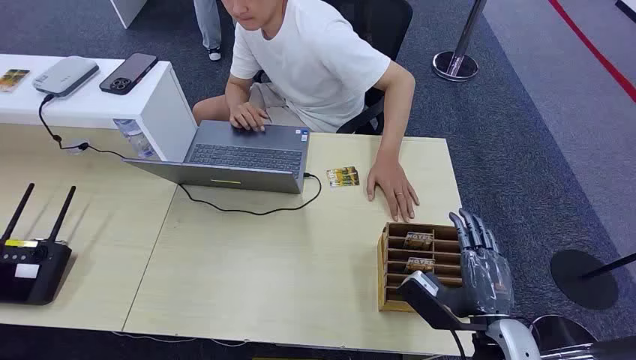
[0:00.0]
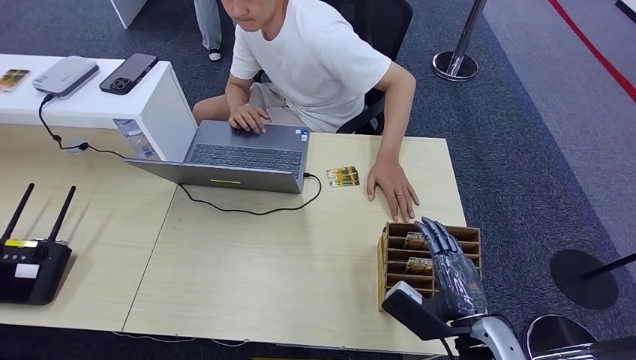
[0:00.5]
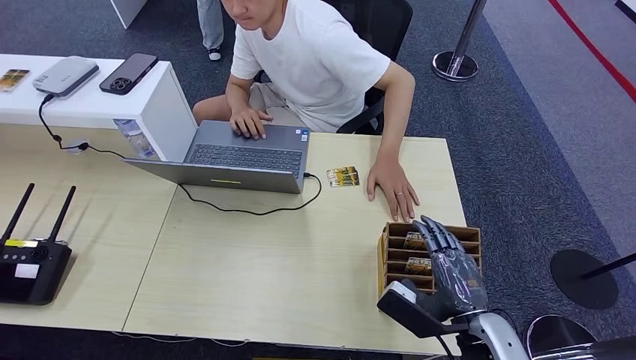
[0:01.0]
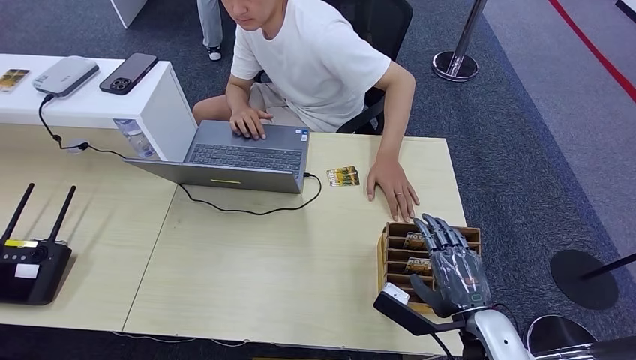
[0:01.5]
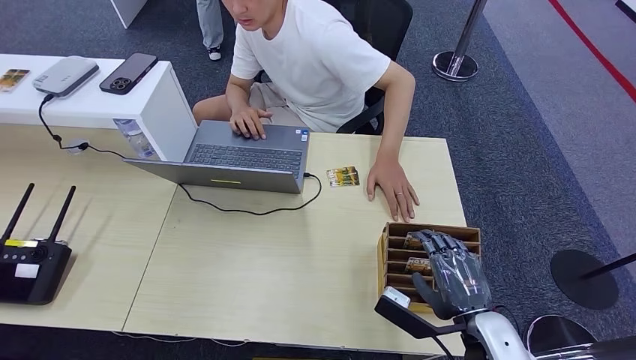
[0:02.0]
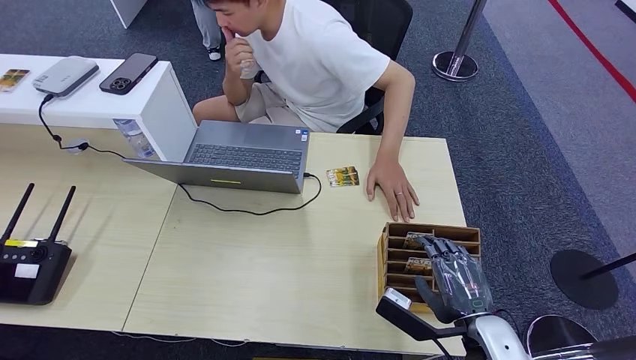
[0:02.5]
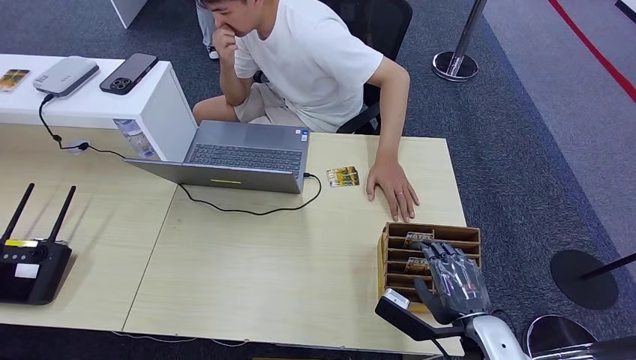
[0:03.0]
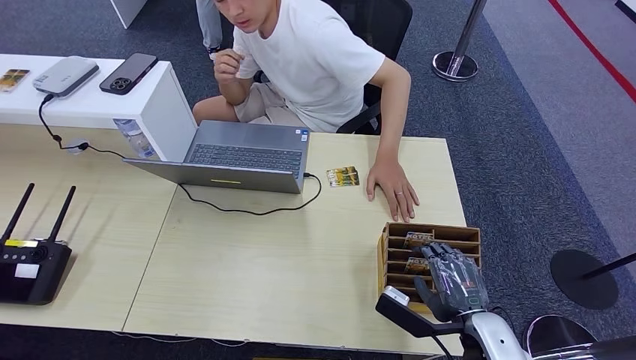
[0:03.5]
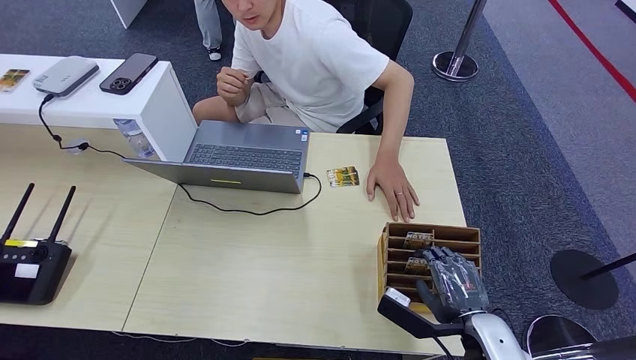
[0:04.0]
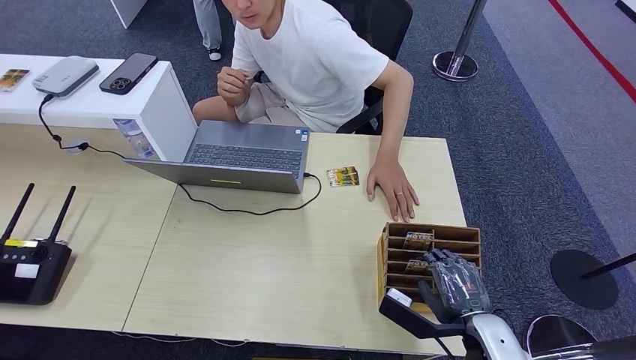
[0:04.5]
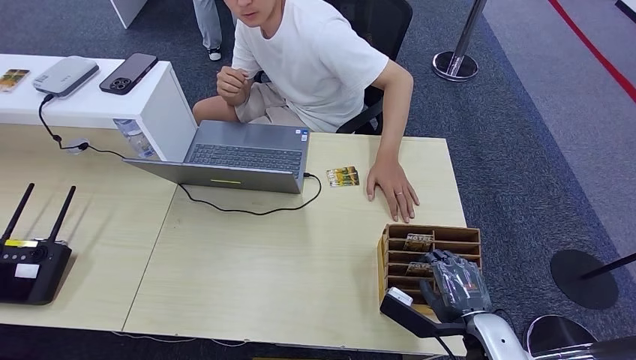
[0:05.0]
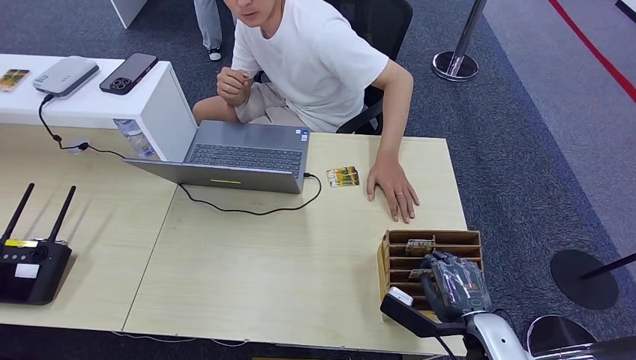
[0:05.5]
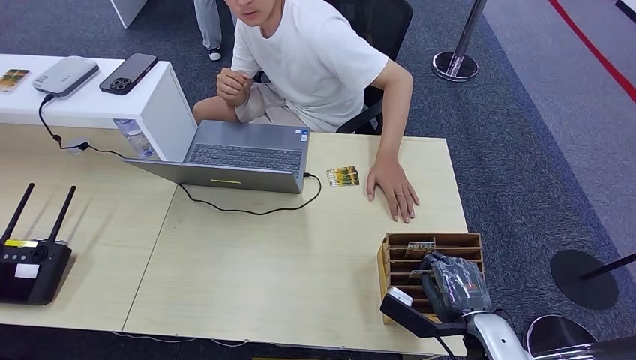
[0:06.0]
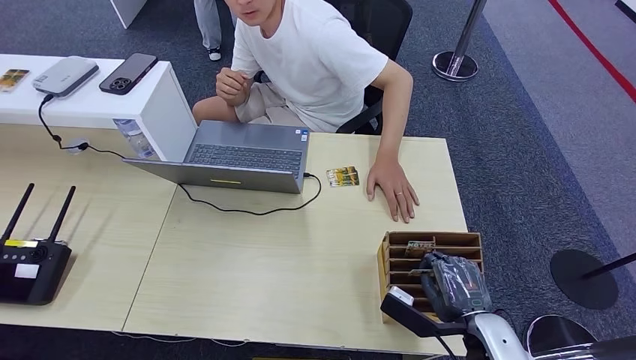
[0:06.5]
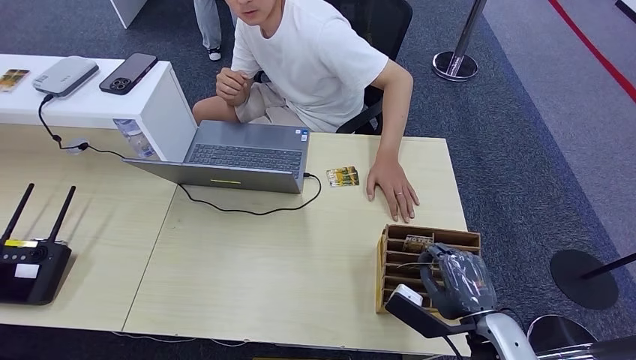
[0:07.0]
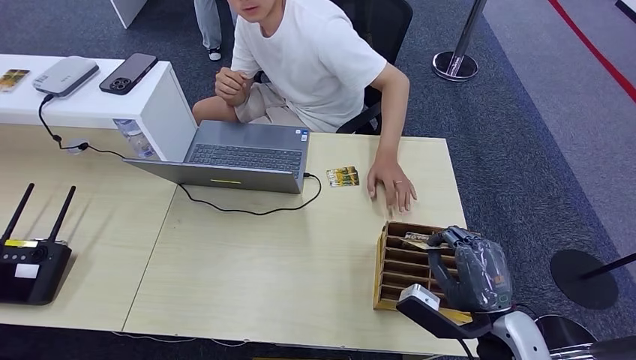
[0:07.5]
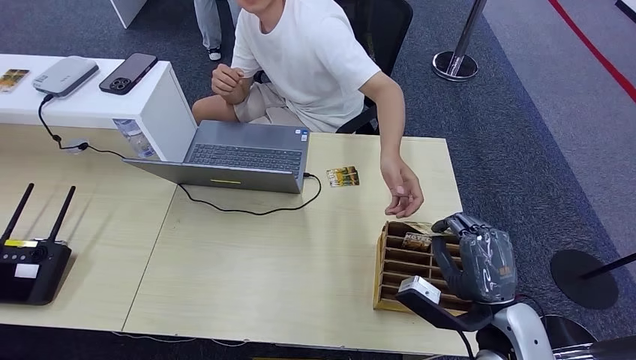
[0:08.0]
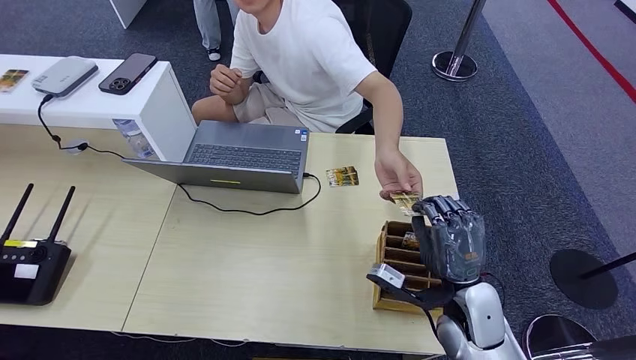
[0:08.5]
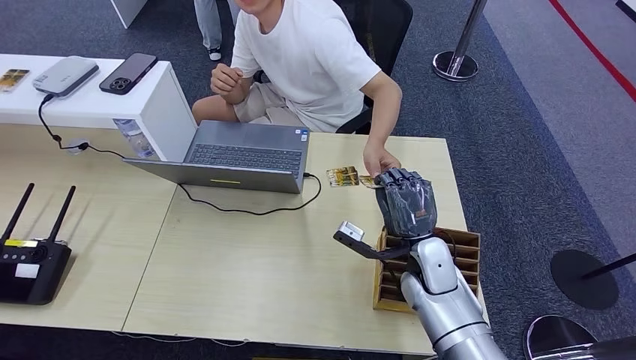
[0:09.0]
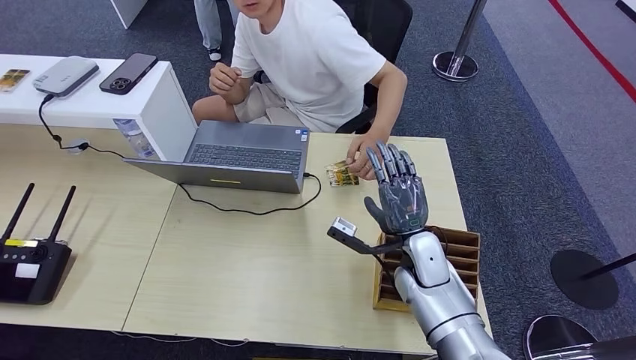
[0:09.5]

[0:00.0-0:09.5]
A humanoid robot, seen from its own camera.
Step, 0:00.0 to 0:06.5: Pick up the key card from the card box.
Step, 0:07.0 to 0:09.0: Hand the key card to the target.
0:02.0 to 0:04.0: The hands make only small movements.
0:04.0 to 0:05.5: Both hands stay about where they are.
0:07.5 to 0:09.5: The right hand travels forward and to the left by roughly 20 cm.
